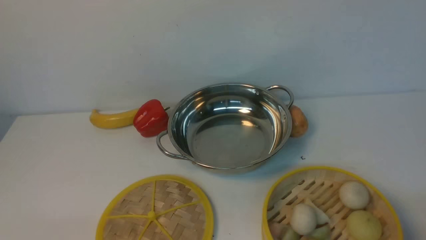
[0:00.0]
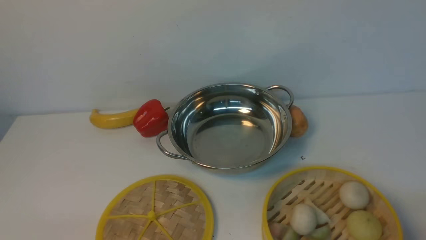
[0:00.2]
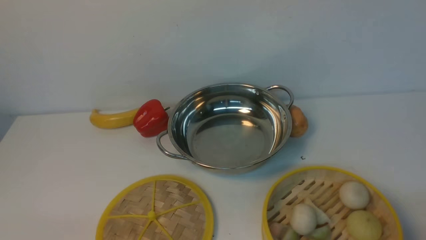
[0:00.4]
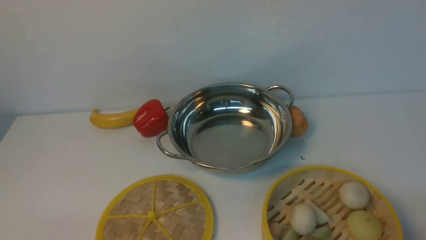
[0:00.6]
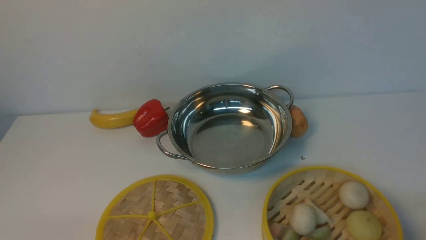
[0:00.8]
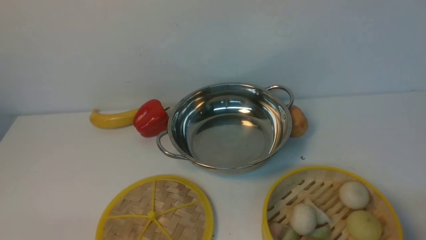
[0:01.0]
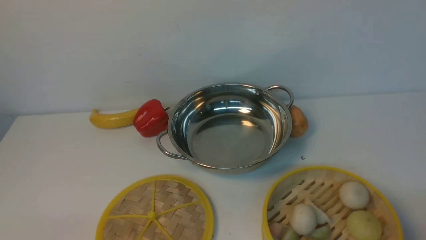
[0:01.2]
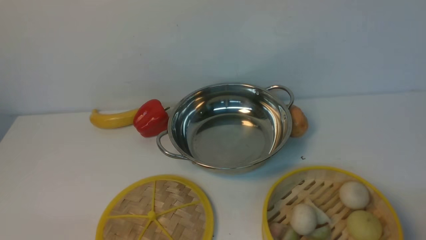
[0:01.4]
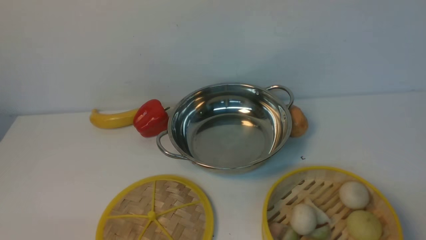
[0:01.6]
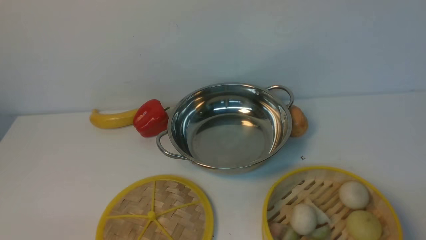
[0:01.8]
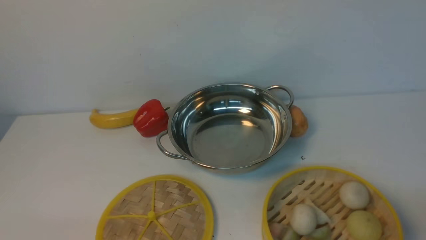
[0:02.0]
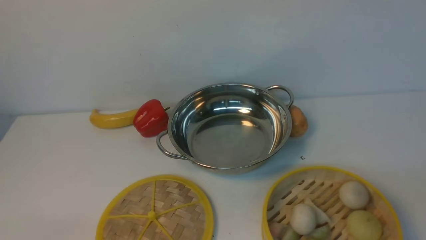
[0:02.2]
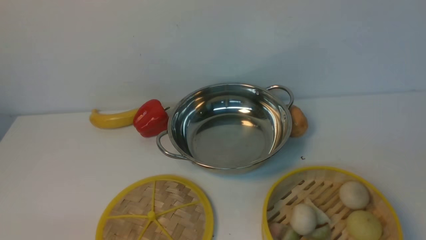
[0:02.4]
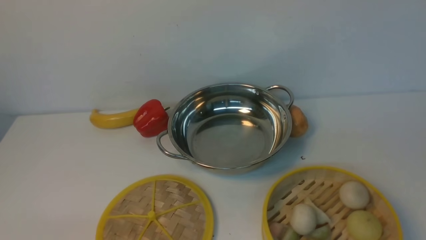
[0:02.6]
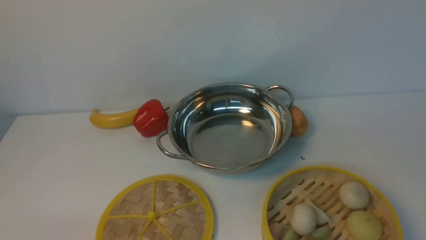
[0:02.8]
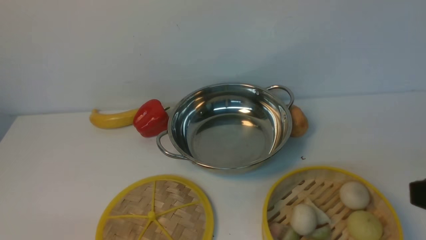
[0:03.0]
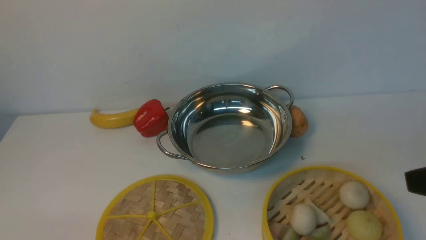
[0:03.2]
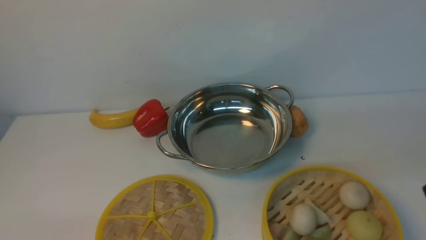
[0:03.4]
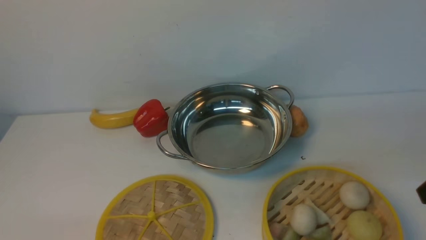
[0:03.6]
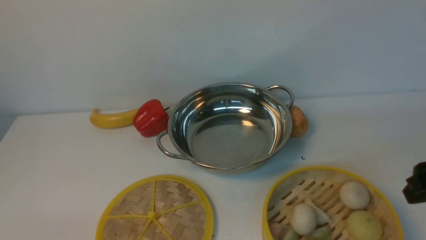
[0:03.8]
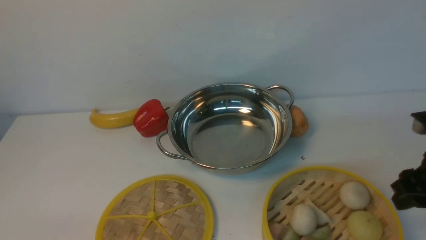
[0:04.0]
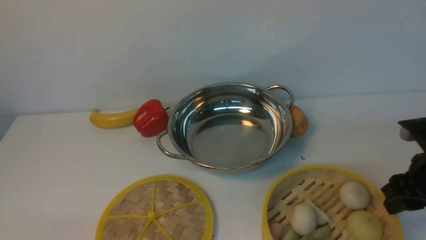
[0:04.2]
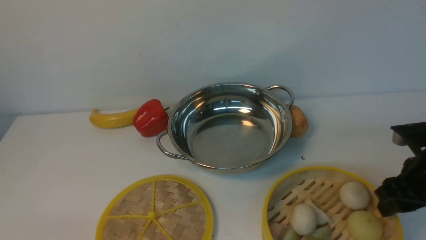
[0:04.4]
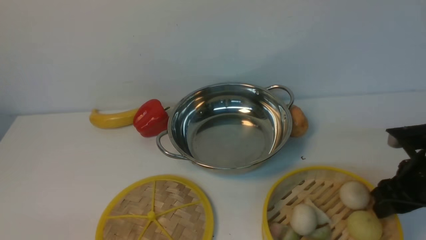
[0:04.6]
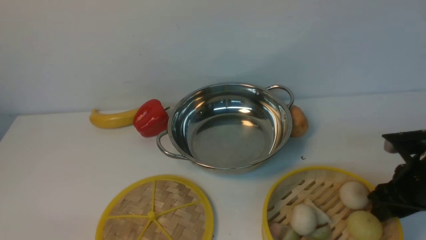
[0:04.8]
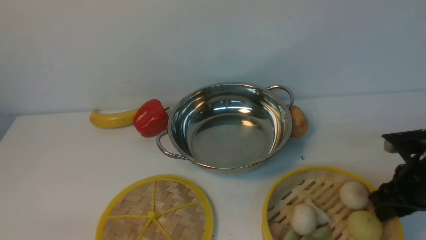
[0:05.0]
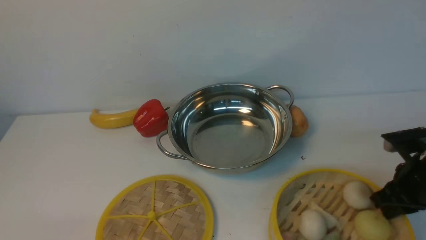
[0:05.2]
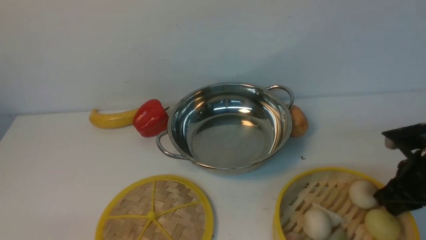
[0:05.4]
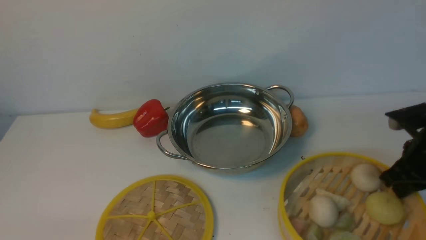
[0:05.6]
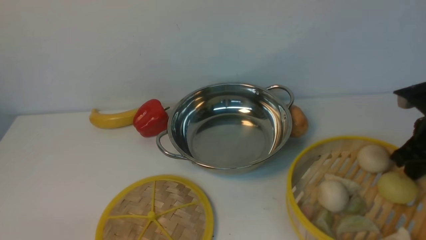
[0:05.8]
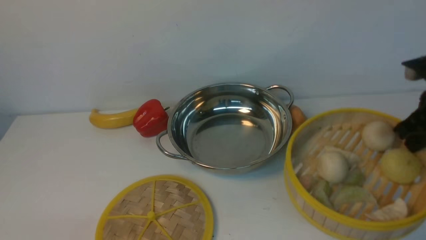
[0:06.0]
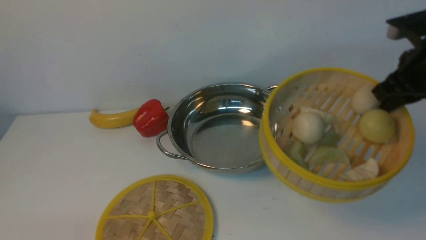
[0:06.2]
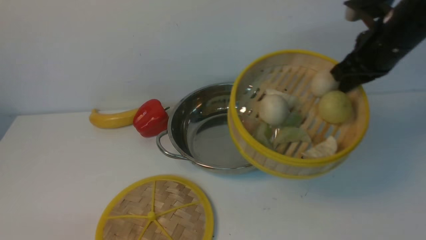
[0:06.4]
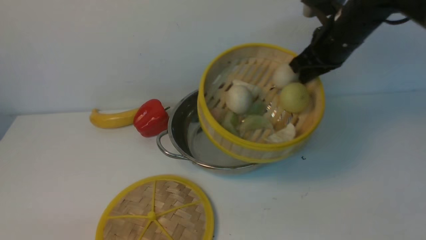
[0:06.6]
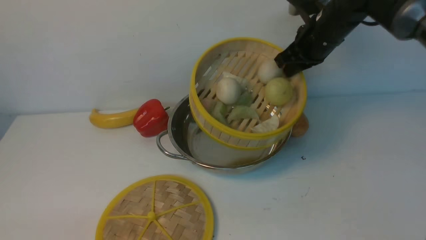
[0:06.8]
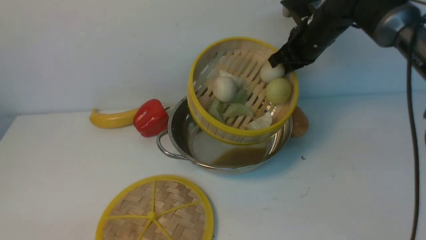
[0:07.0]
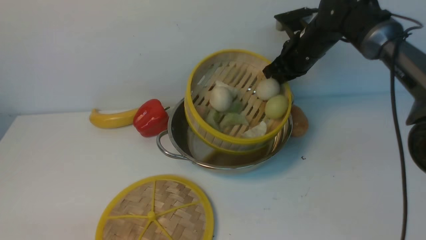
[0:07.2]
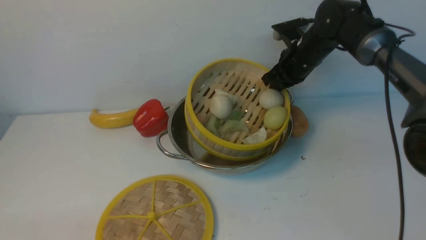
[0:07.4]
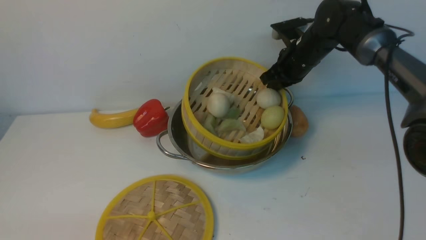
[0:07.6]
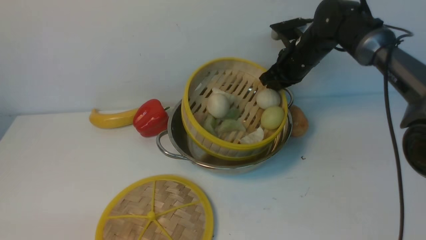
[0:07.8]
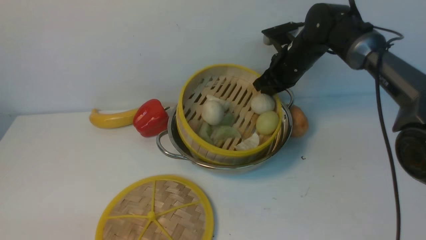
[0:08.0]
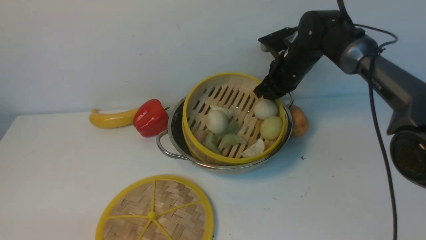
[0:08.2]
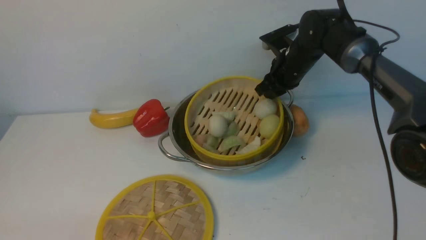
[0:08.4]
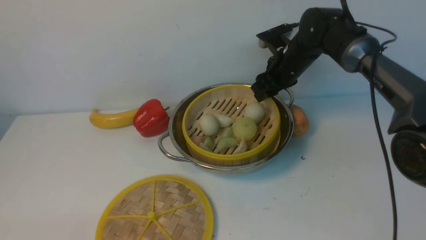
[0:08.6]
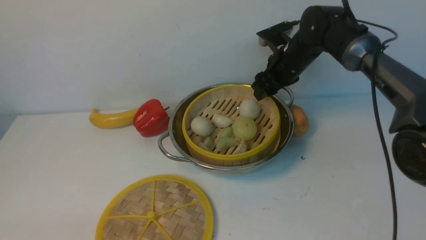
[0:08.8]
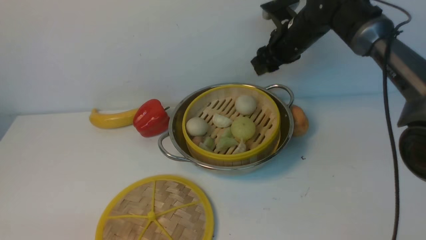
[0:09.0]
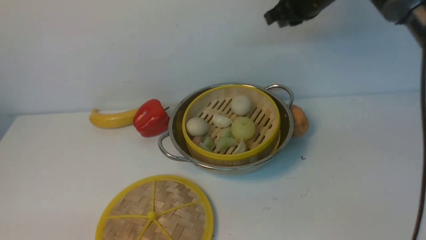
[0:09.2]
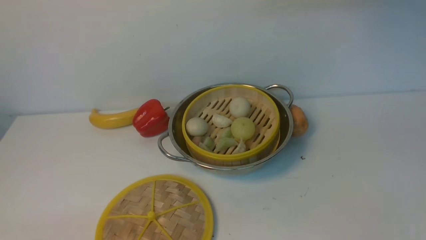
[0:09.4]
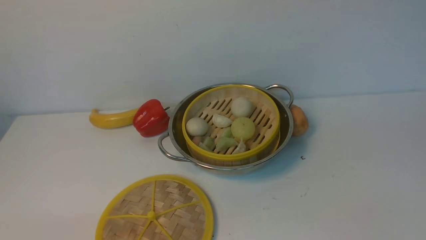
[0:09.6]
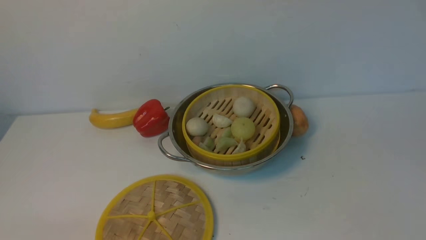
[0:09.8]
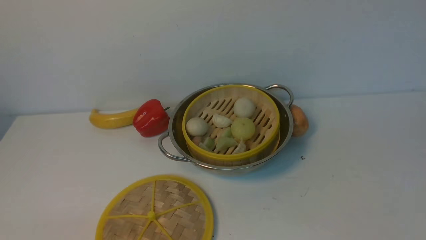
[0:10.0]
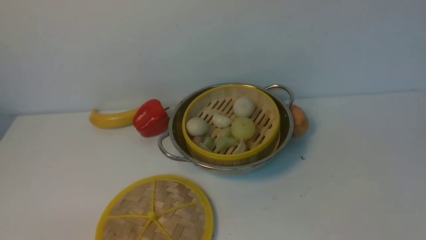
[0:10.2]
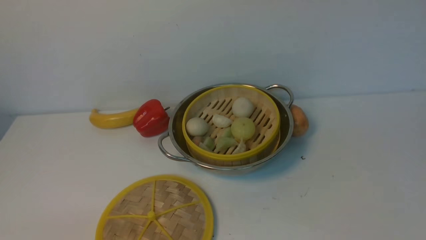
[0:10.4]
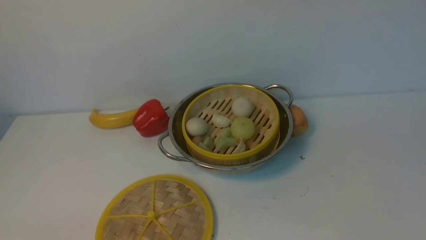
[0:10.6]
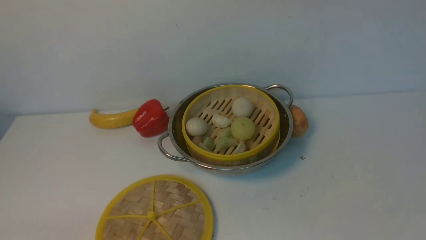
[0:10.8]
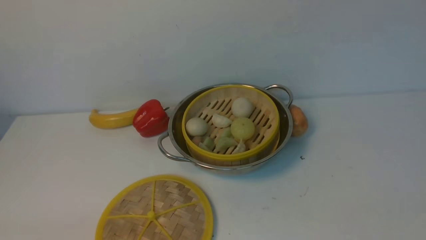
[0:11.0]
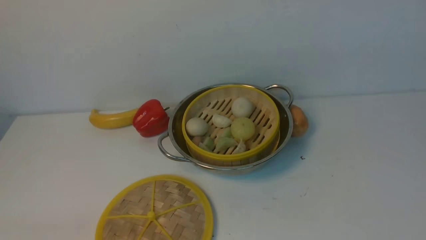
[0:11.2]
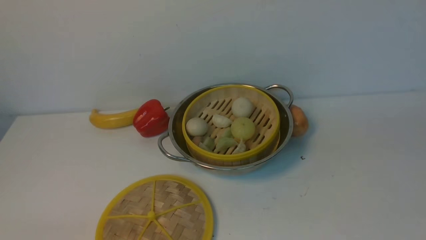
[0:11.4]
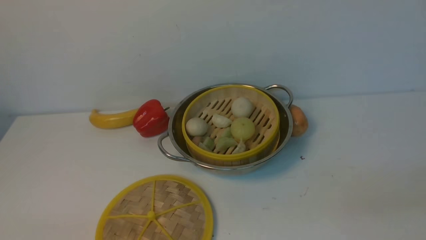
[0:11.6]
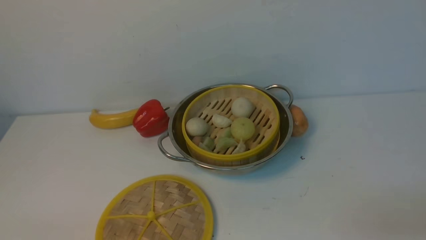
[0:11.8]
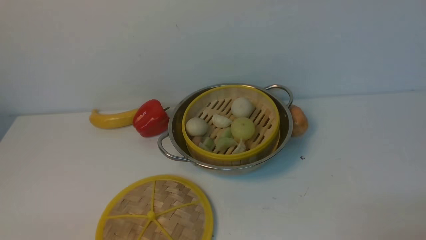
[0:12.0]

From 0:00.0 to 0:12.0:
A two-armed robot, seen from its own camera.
Task of the whole recording: place the steamer in the pot on the white table, and put the lid on the steamer.
Step, from 0:00.0 to 0:05.6: use the right arm to lift the steamer closest to it.
Step, from 0:05.8 to 0:08.8: use the right arm to put the steamer into the iron steamer pot in the middle.
From 0:03.0 to 0:04.4: The right gripper goes some 25 cm downward and forward, and opens up.
From 0:04.4 to 0:06.0: The right gripper heads upward and forward, covering approximately 10 cm, and closes up.
From 0:06.0 to 0:07.6: The right gripper is displaced forward and to the left by approximately 25 cm.
From 0:07.6 to 0:09.0: The right gripper moves upward, approximately 5 cm, and opens up.
From 0:09.0 to 0:10.4: The right gripper shifts approximately 35 cm upward and backward, and closes its fingers.

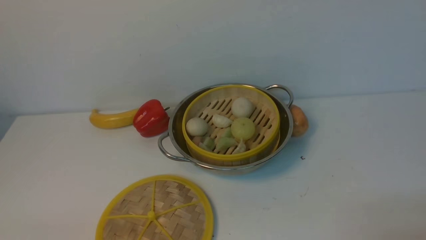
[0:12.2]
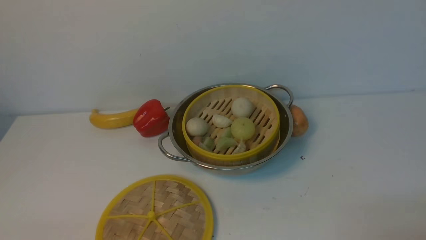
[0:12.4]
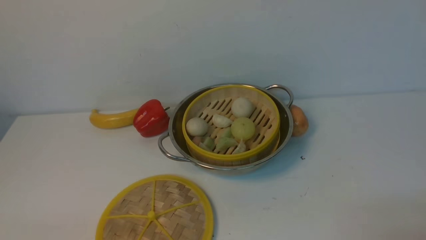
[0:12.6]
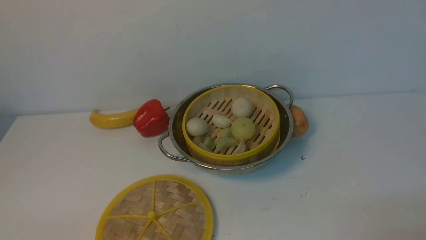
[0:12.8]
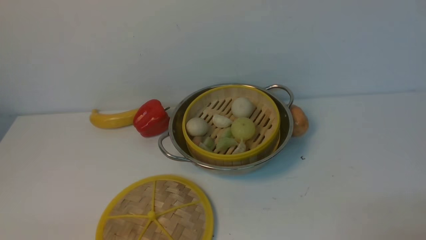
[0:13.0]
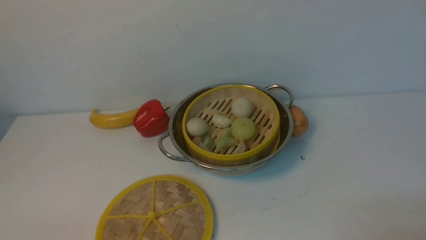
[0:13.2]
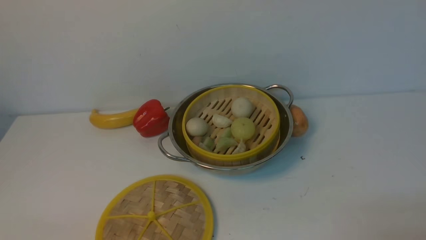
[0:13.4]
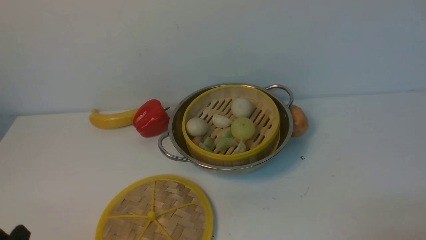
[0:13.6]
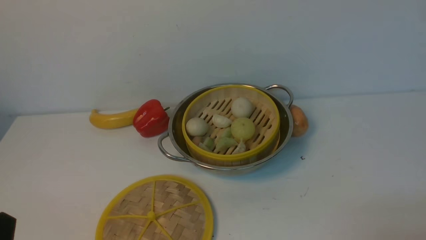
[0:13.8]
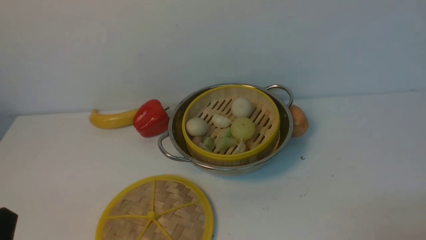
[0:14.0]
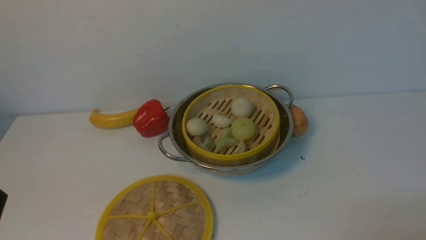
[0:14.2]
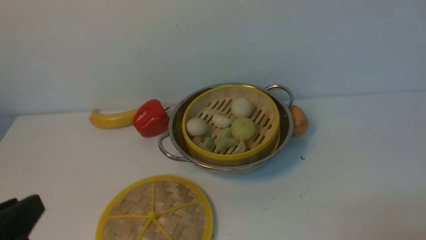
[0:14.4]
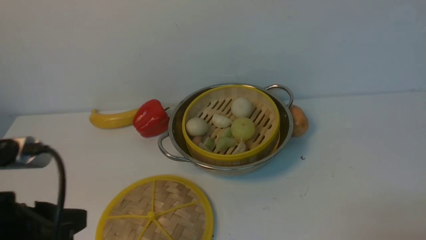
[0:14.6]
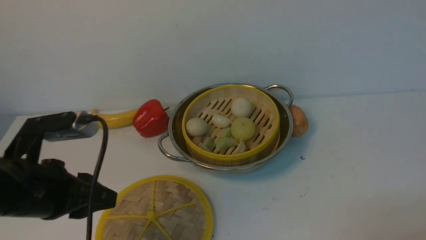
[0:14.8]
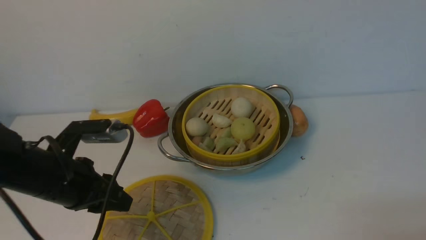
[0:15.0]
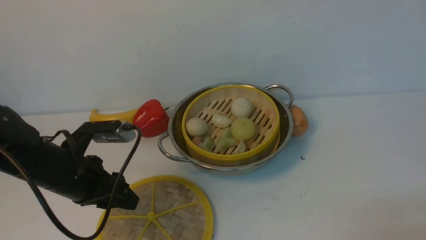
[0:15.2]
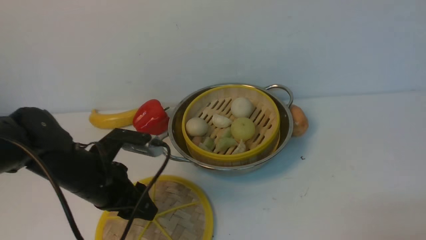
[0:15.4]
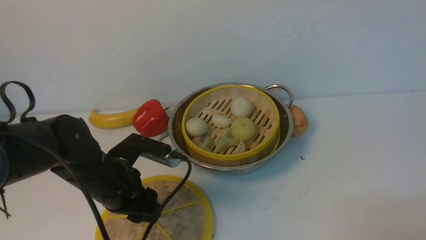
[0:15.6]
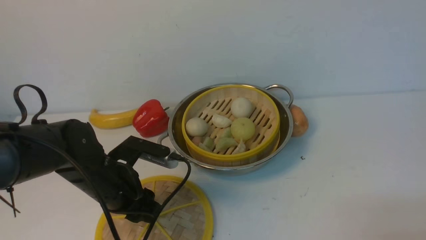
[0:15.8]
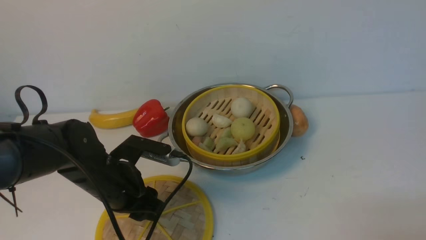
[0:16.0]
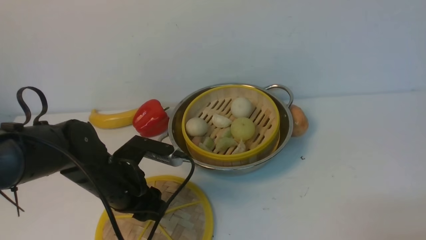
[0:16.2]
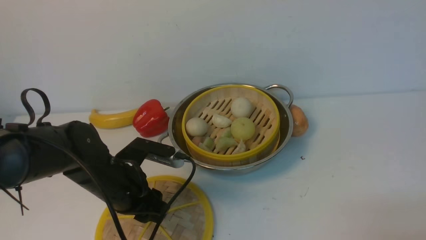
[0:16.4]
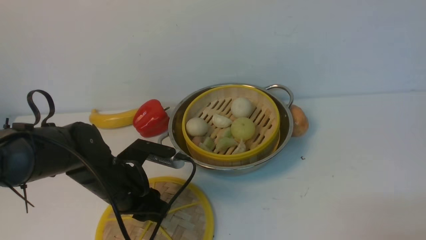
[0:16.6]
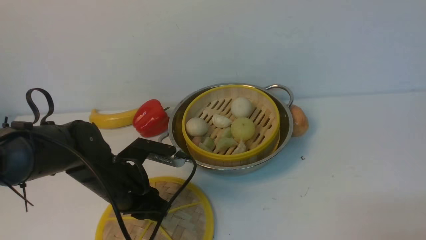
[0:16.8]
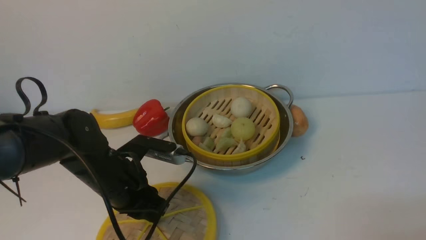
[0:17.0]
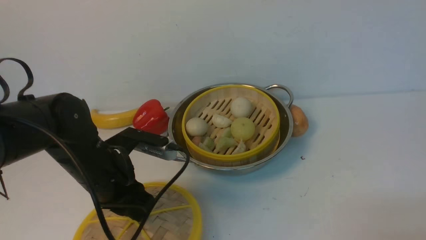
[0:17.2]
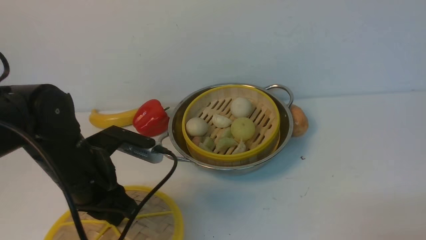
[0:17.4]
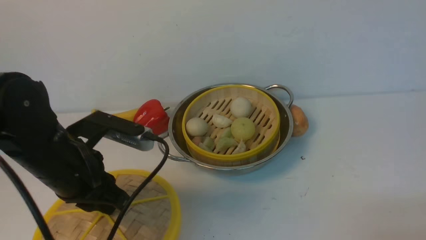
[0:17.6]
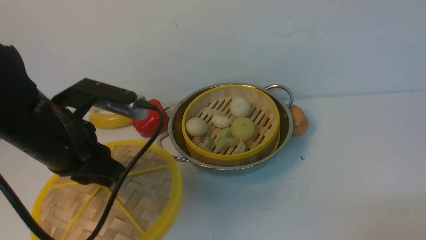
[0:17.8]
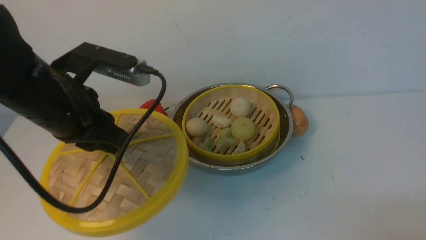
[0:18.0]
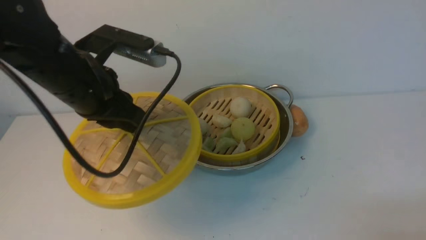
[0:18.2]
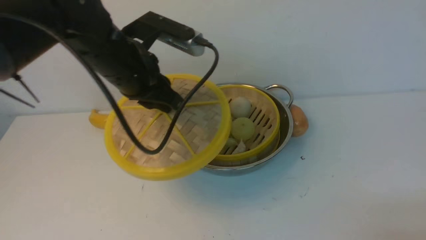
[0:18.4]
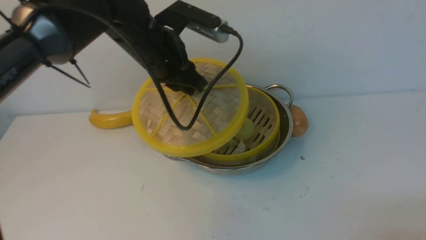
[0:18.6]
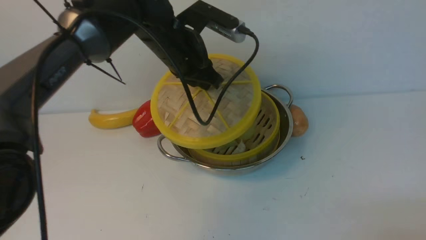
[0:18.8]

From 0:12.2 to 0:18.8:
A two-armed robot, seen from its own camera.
Task of the whole recording: place the steamer in the pot on the white table, and put the lid on the steamer.
Step, from 0:12.2 to 0:17.2: use the left arm to lift the lid of the steamer.
From 0:13.8 to 0:15.4: The left gripper is displaced forward by roughly 20 cm.
From 0:15.4 to 0:17.2: The left gripper closes up.
From 0:17.2 to 0:18.8: The left gripper moves forward, to the right and upward, about 20 cm.
